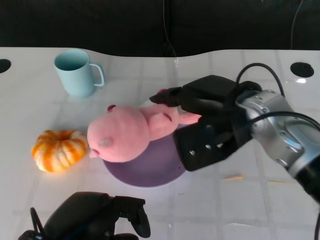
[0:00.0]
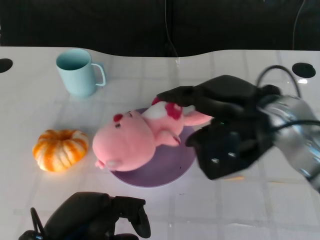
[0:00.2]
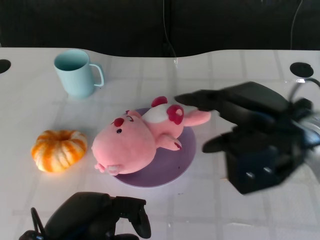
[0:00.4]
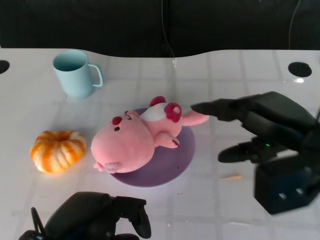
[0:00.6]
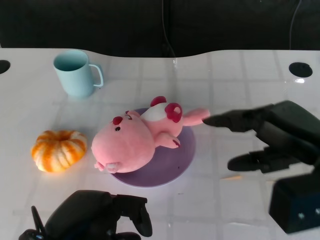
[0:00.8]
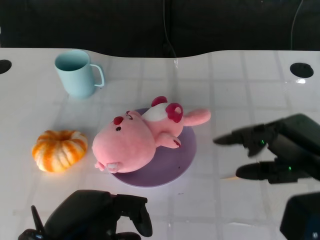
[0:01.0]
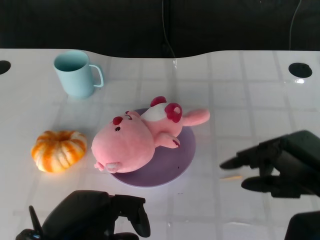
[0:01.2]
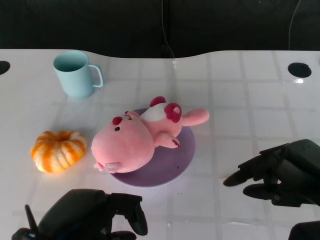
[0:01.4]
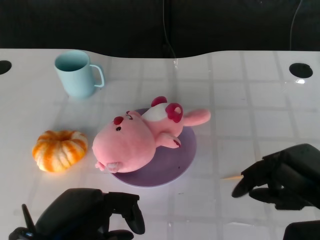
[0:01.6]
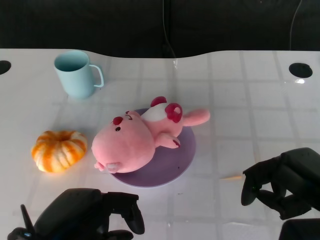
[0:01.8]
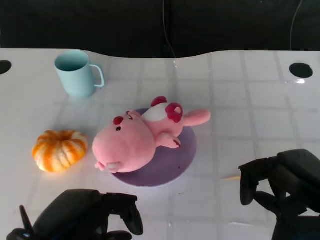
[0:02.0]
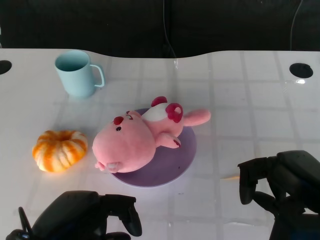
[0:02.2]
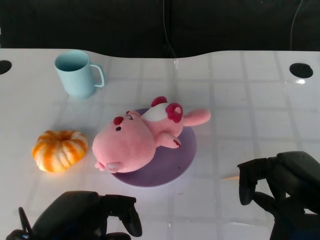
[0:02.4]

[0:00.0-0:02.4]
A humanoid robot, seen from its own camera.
Task of the whole recording: Pick up the doll on the other side of the plate and place it into the plate.
0:00.0 to 0:01.2: The right hand travels to the right and backward by roughly 15 cm.
0:01.2 to 0:02.4: The hands make only small movements.

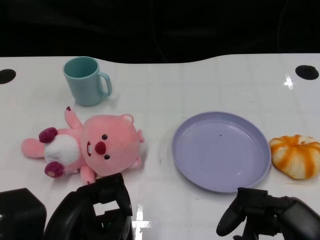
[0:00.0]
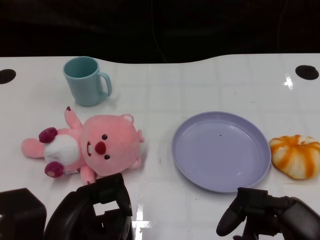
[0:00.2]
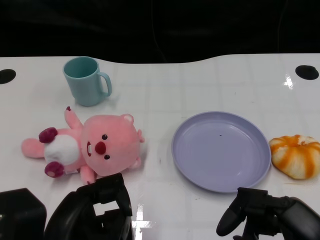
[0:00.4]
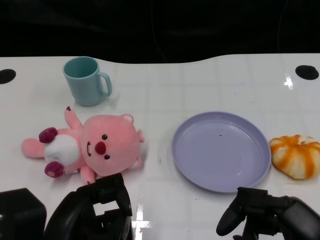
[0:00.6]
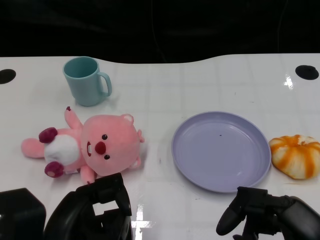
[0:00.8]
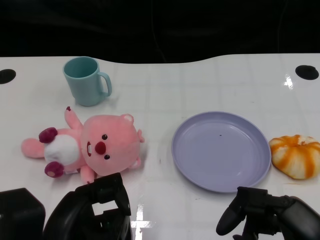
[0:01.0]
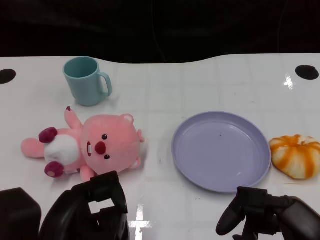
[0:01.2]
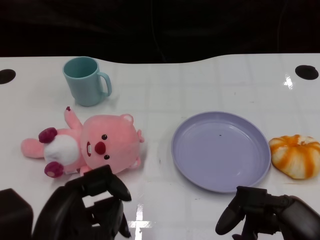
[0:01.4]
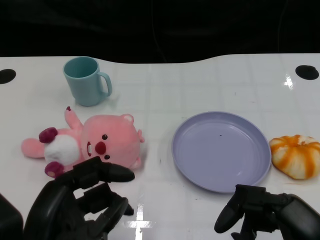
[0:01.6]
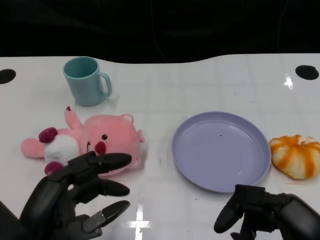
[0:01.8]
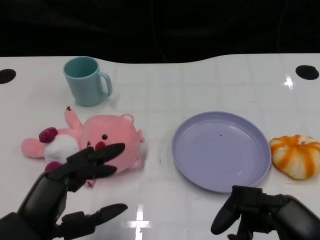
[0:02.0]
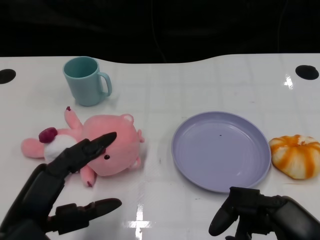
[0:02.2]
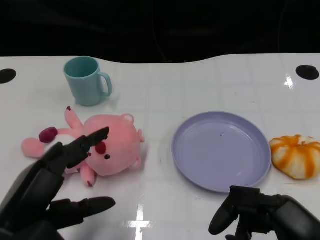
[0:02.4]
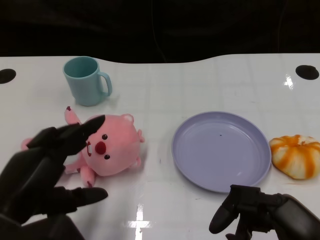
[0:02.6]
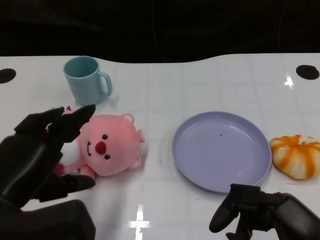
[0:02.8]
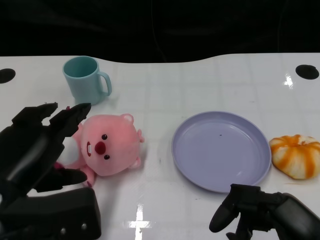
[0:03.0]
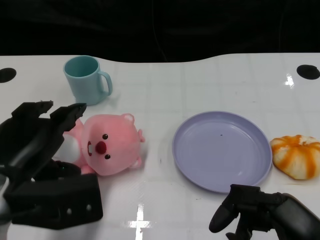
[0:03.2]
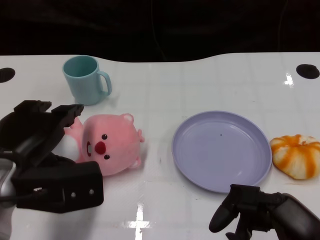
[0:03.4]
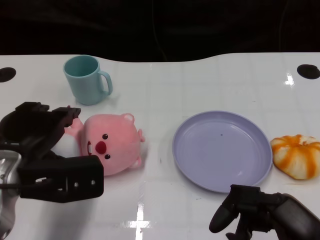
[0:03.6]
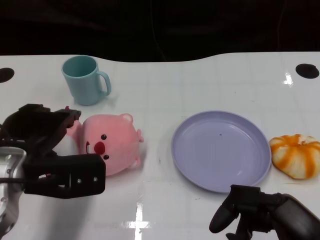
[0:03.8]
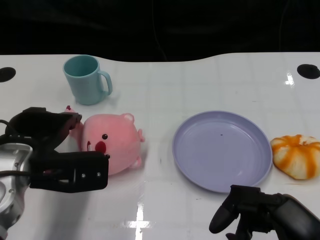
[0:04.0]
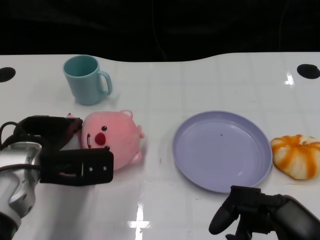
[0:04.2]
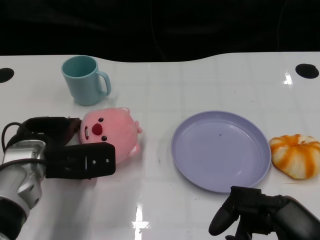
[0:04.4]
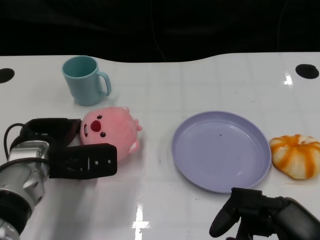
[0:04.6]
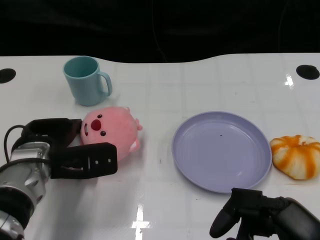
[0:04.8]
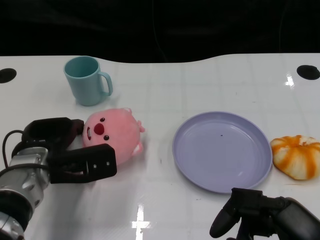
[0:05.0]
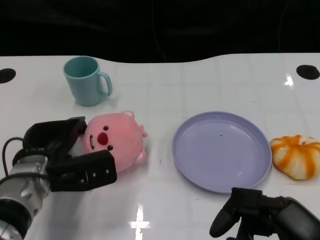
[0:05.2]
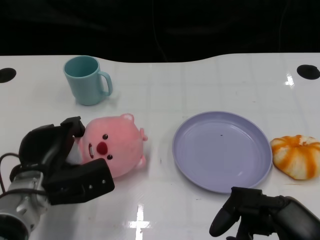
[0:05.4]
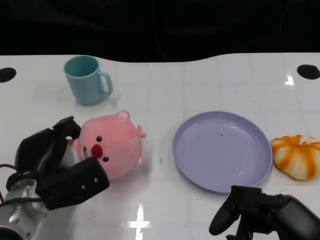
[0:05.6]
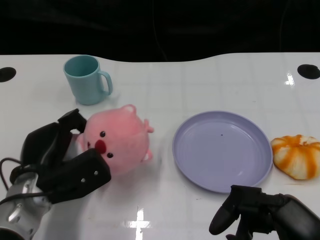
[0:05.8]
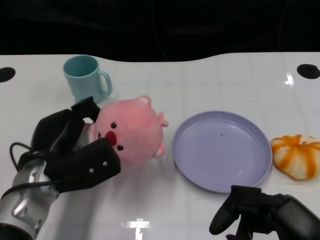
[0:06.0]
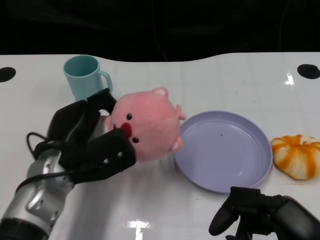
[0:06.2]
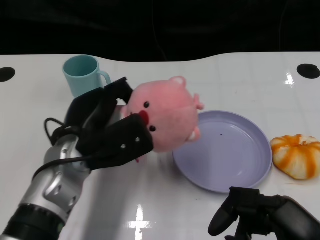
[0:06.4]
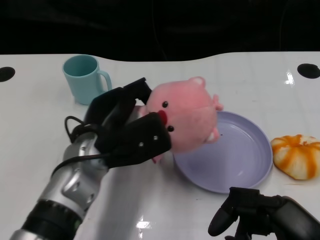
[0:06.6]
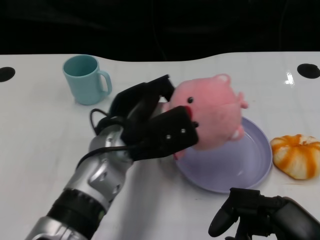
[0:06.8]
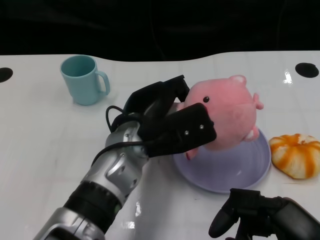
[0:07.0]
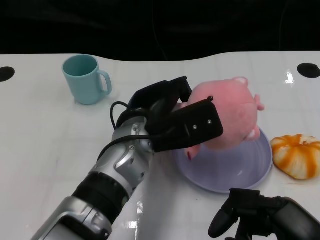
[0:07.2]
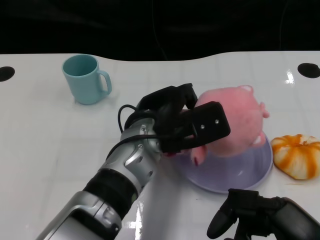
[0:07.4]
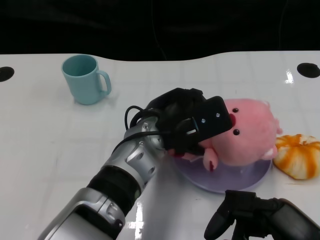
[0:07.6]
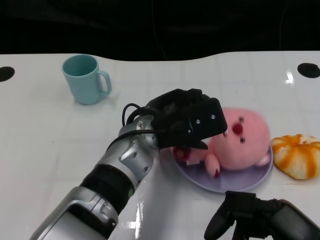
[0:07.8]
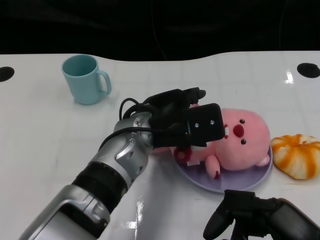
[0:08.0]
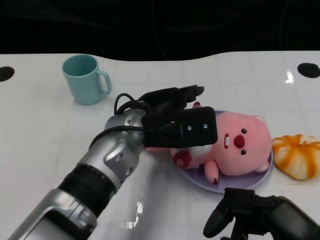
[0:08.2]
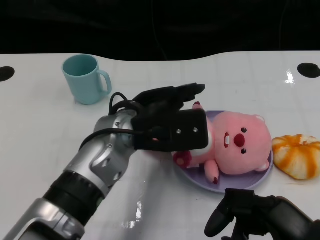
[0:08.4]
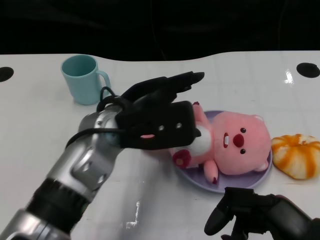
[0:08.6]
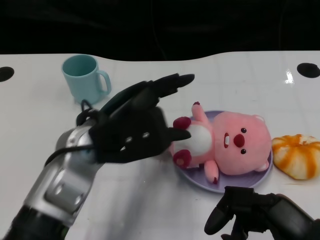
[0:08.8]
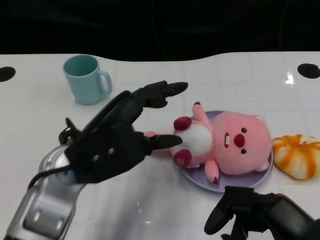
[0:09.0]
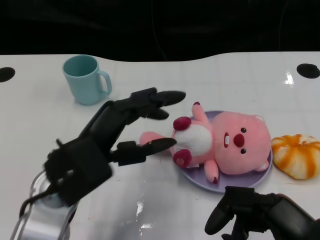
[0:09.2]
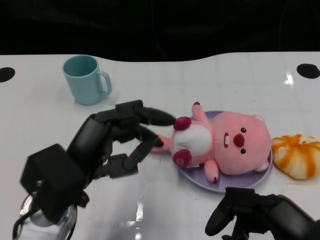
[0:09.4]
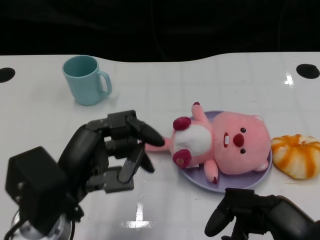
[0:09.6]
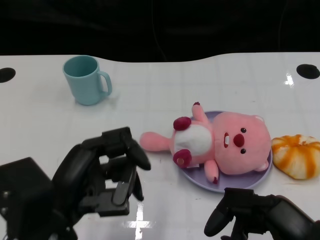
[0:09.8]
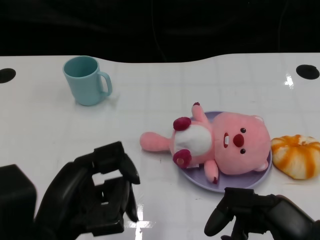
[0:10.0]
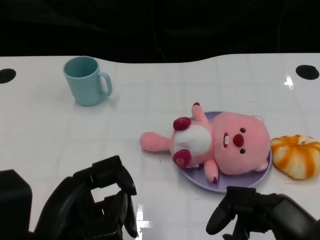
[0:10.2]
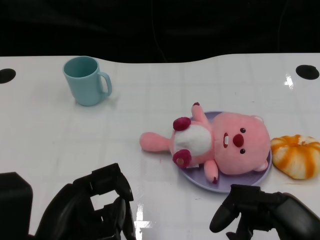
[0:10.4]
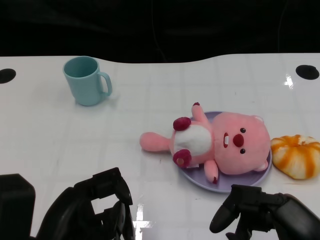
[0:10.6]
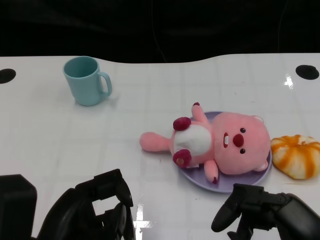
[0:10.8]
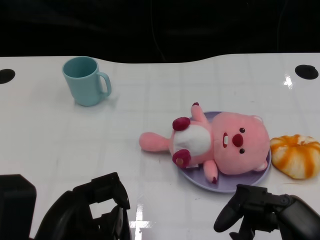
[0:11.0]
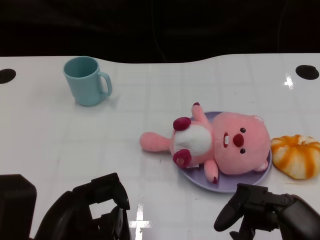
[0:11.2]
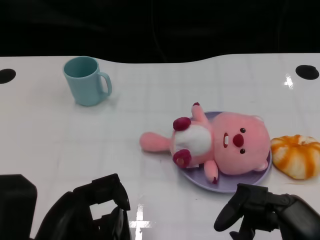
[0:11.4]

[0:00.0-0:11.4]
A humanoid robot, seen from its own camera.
Task of the whole recording: Pick up the doll on one side of the plate and place it into the plate.
Step, 0:01.2 to 0:05.6: Grasp the pink doll with the left gripper.
Step, 0:05.8 to 0:08.0: Place the pink doll into the plate with the left gripper.
0:01.4 to 0:02.8: The left hand moves some 5 cm.
0:02.8 to 0:04.2: The left hand moves forward, approximately 10 cm.
0:04.2 to 0:05.6: The left hand travels downward by about 5 cm.
0:05.6 to 0:07.2: The left hand heads to the right and upward, covering approximately 20 cm.
0:07.2 to 0:08.6: The left hand moves roughly 5 cm.
0:08.6 to 0:10.0: The left hand travels backward and to the left by approximately 15 cm.
0:10.0 to 0:11.4: The hands move only a little.
